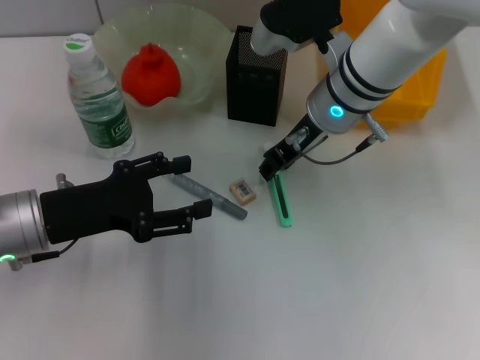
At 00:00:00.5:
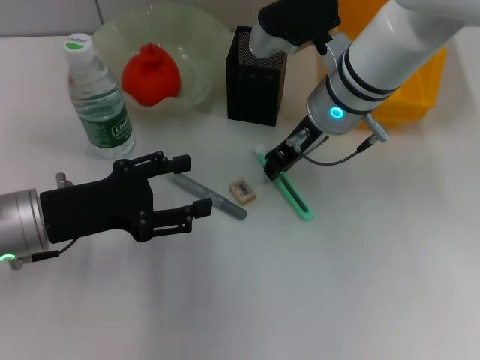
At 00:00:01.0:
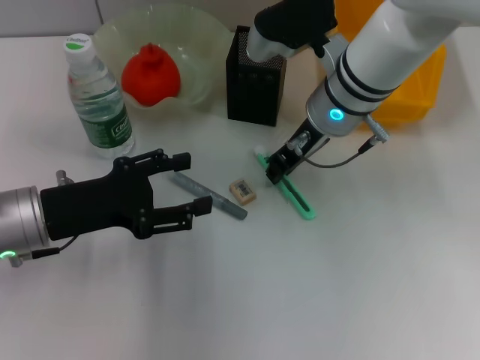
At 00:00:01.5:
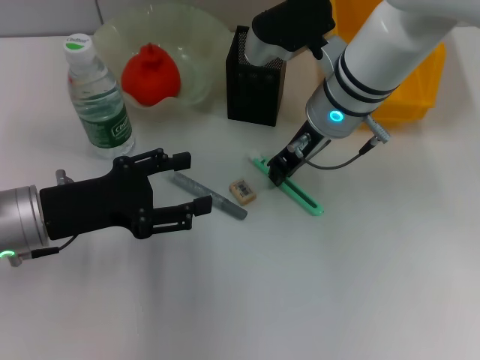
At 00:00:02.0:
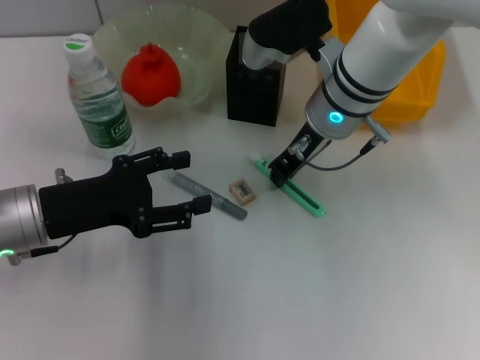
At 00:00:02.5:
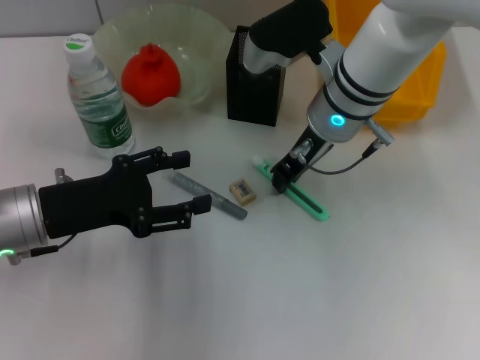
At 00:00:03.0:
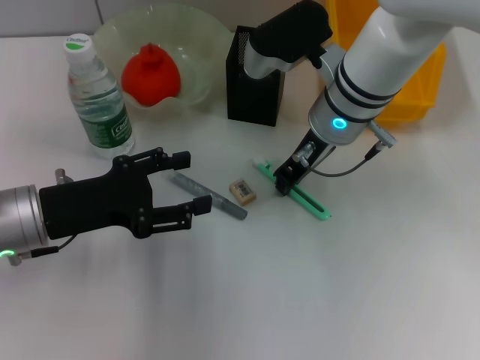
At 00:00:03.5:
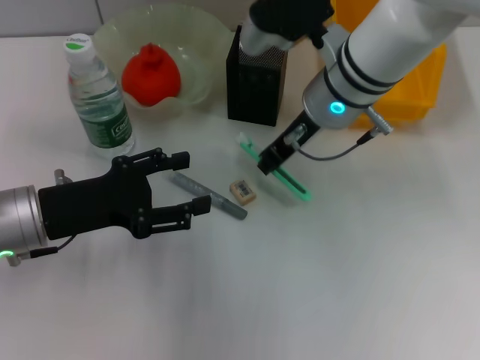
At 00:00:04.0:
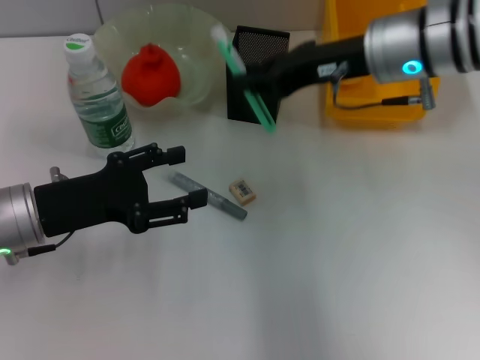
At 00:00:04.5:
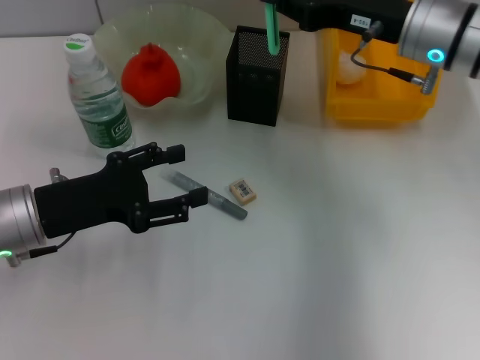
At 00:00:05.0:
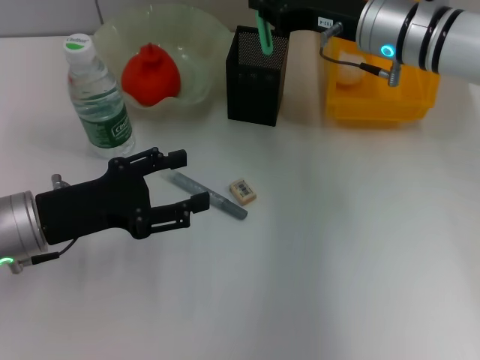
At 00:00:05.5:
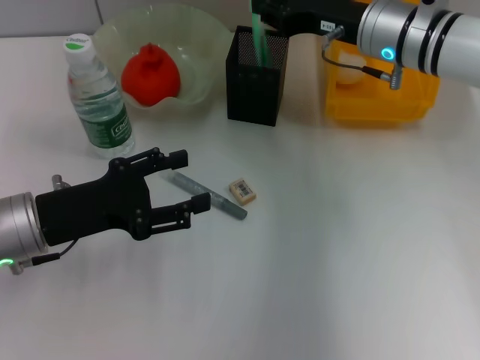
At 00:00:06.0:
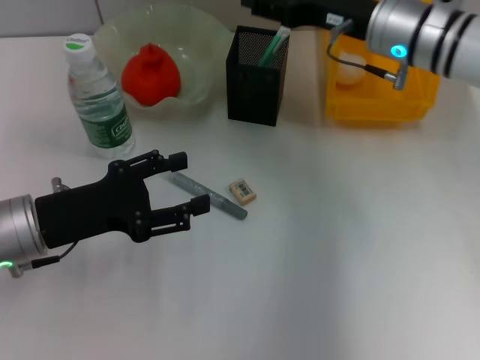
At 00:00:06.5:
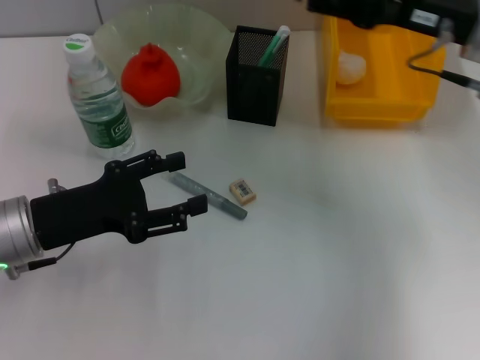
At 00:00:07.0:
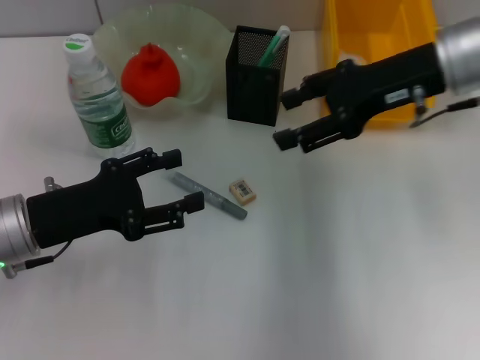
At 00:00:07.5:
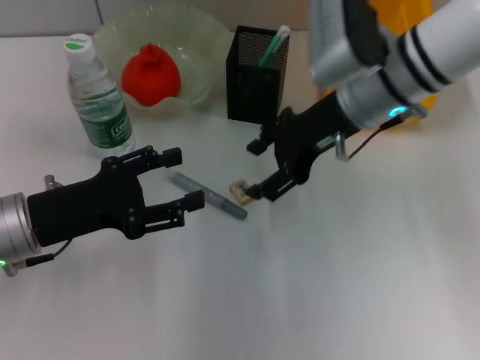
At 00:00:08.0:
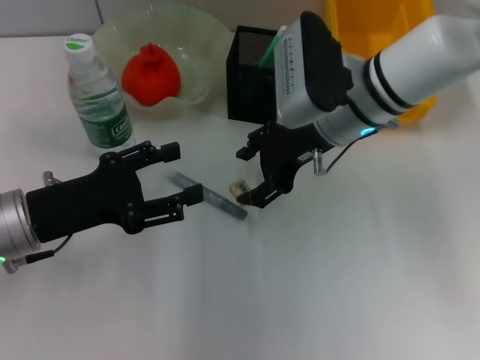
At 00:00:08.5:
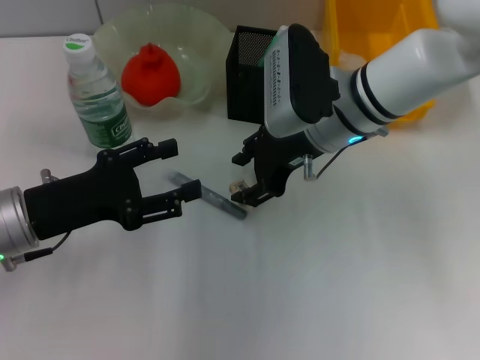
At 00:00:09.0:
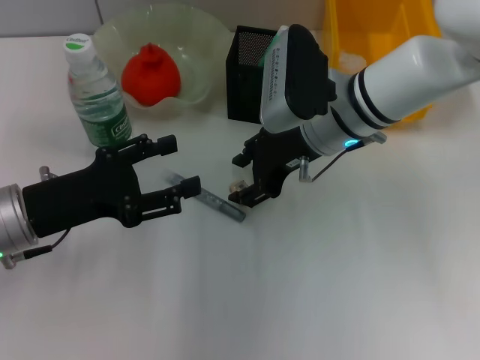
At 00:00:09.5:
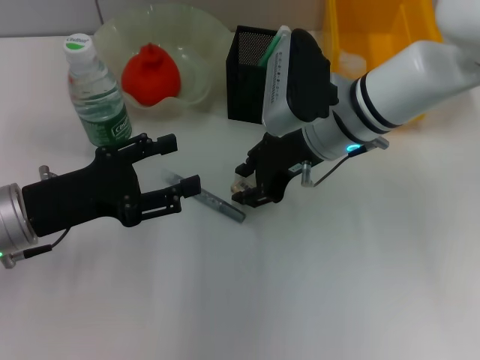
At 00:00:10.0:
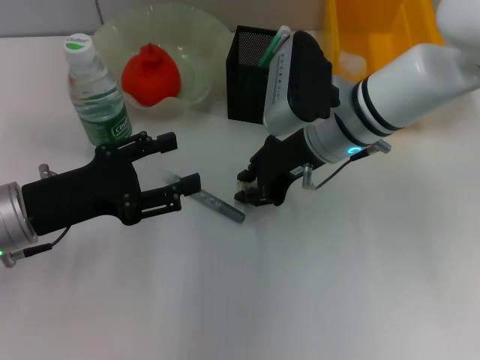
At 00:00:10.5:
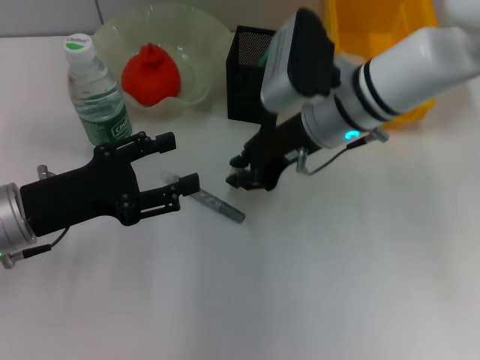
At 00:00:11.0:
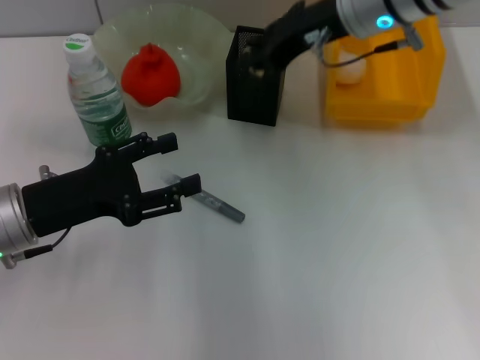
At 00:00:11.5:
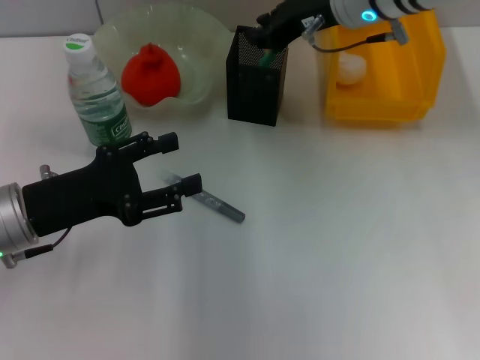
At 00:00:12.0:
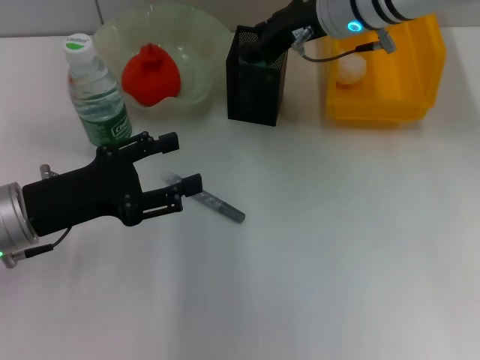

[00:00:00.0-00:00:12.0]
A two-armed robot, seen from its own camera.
Step, 00:00:00.0 to 00:00:02.5: Grab the blue utility knife with the right hand.
Step, 00:00:03.0 to 00:00:05.5: Place the blue utility knife into the pen holder with the right hand.
Step, 00:00:06.0 to 00:00:09.5: Grab the eraser with the right hand.
Step, 00:00:10.5 to 00:00:12.0: Put the eraser into the pen holder with the right hand.
00:00:00.0 to 00:00:02.0: The grippers stay close to where they were, moving slightly.
00:00:02.0 to 00:00:04.0: The right gripper is displaced to the right and upward by about 10 cm.
00:00:04.0 to 00:00:06.0: The right gripper ends up approximately 5 cm from where it was, and opens.
00:00:06.0 to 00:00:08.0: The right gripper goes about 5 cm to the left.
00:00:08.0 to 00:00:10.0: The right gripper closes its fingers.
00:00:10.0 to 00:00:12.0: The right gripper travels upward and forward by roughly 10 cm.

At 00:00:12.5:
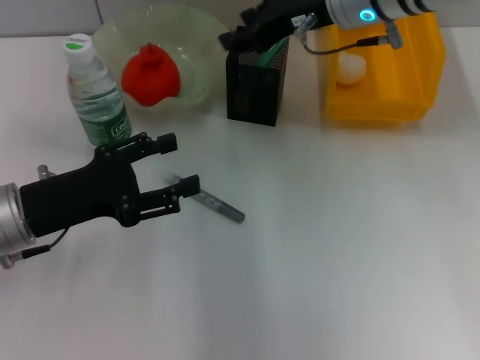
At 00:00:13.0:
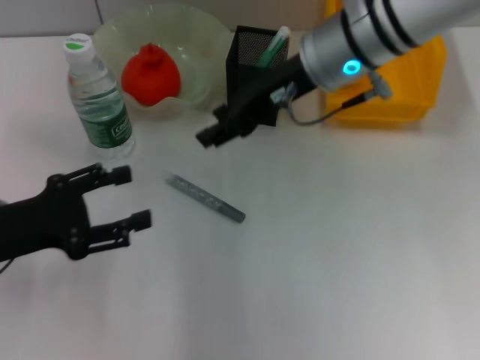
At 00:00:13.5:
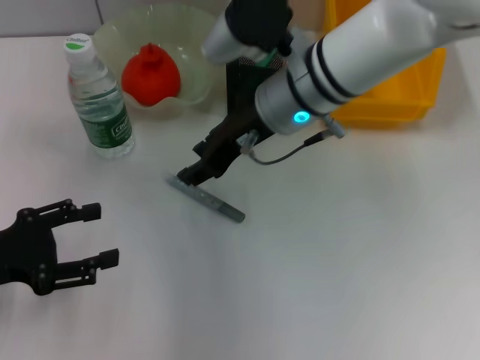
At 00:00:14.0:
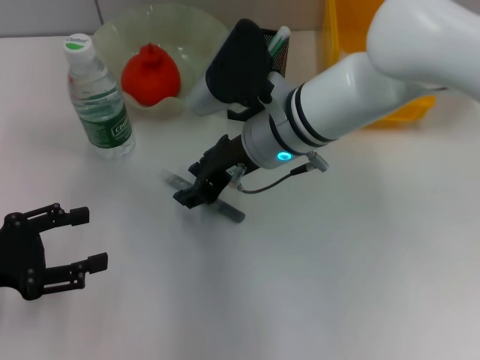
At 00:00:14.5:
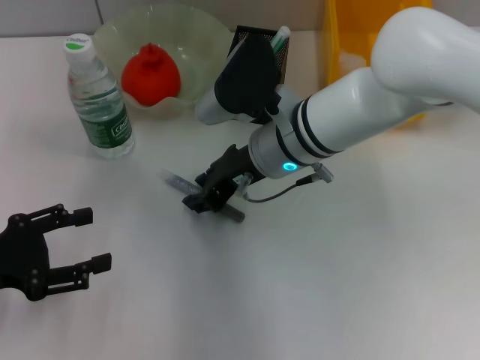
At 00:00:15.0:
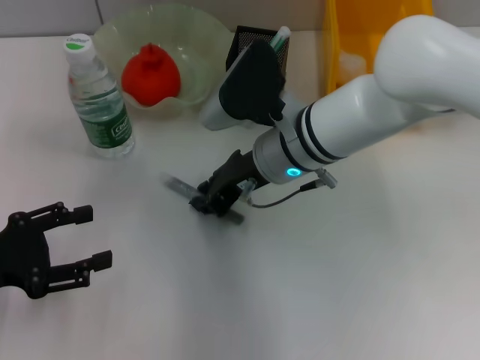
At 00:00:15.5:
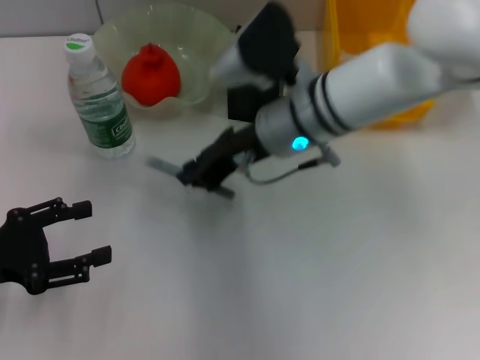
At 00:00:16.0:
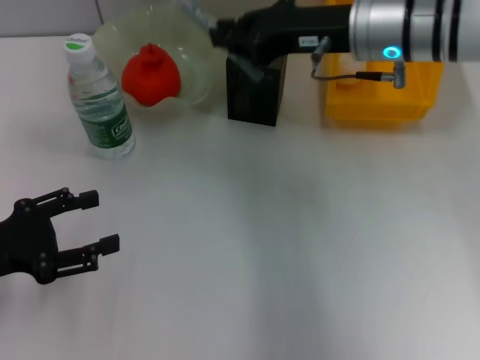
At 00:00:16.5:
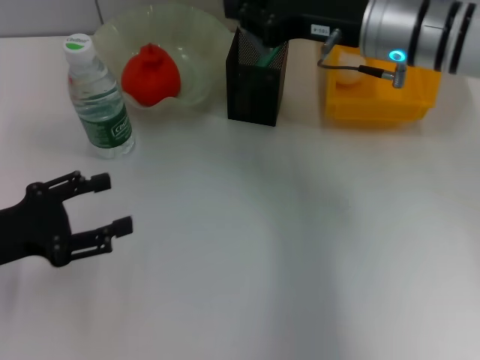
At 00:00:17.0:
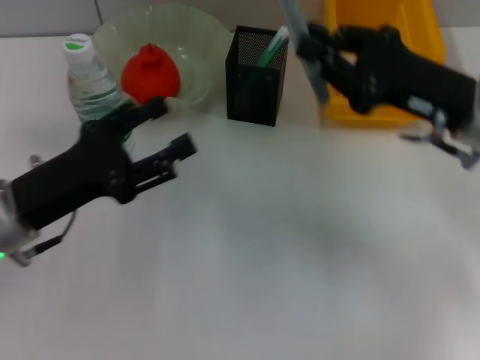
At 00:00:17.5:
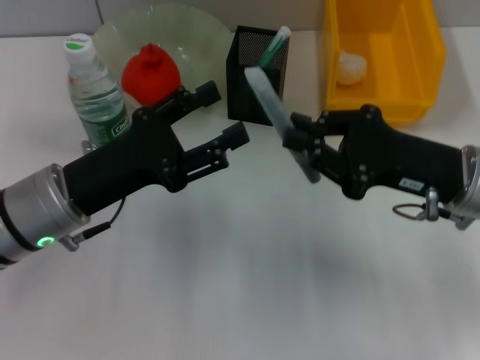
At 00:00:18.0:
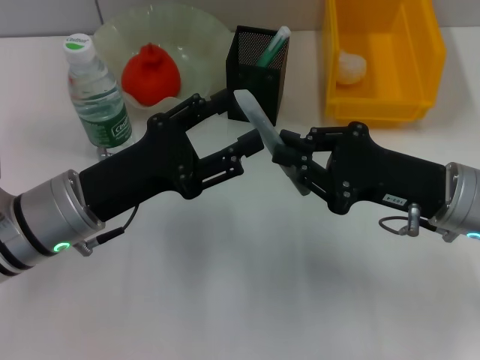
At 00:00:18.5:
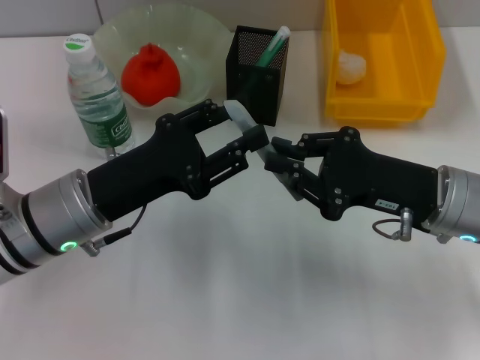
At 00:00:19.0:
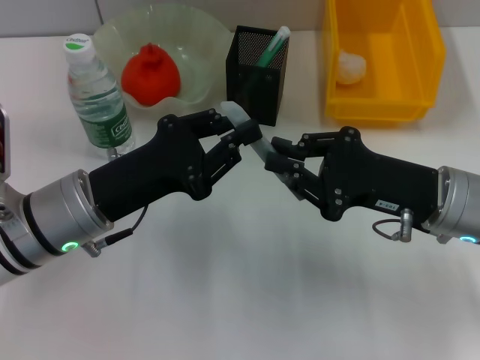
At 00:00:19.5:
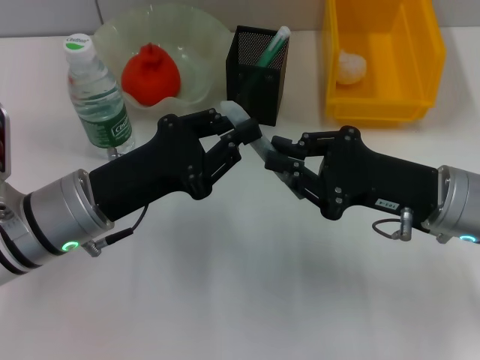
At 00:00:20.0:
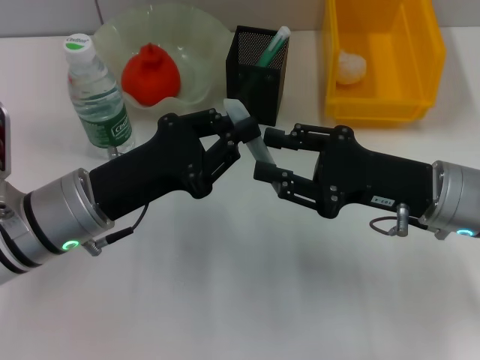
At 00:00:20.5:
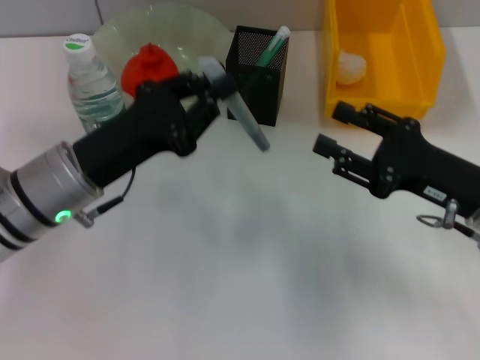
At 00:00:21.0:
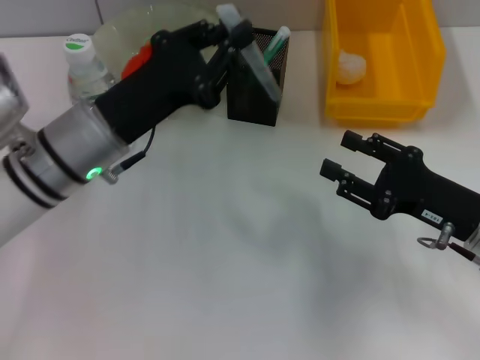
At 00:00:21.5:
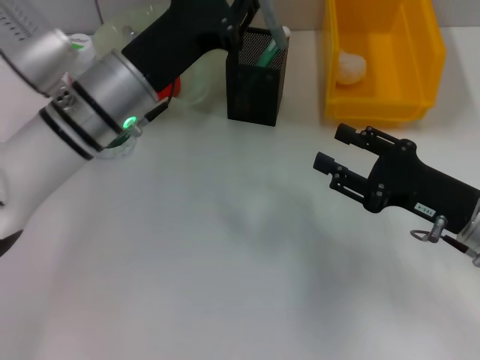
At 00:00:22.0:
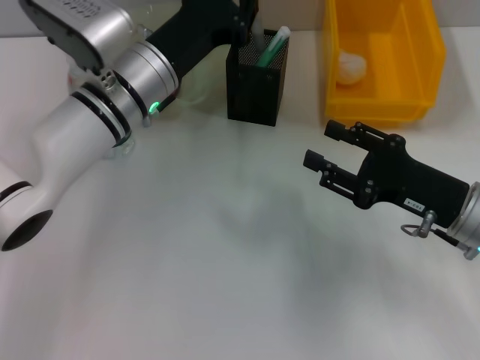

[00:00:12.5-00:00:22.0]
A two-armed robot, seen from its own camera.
Step, 00:00:12.5 to 00:00:15.0: Grab the gray glue with the right hand.
Step, 00:00:15.5 to 00:00:19.5: Pass the gray glue from the right hand to the left hand.
00:00:12.5 to 00:00:14.5: The left gripper goes about 10 cm to the left, while the right gripper heads downward, to the left and backward, covering some 15 cm.
00:00:14.5 to 00:00:16.5: The right gripper moves to the right and upward, about 15 cm, and closes its fingers.
00:00:16.5 to 00:00:18.0: The left gripper moves to the right, some 10 cm, while the right gripper goes about 15 cm backward, downward and to the right.
00:00:18.0 to 00:00:20.0: The left gripper closes up.
00:00:20.0 to 00:00:22.0: The right gripper moves some 5 cm, and opens its fingers. Meanwhile the left gripper goes approximately 15 cm forward and to the right.

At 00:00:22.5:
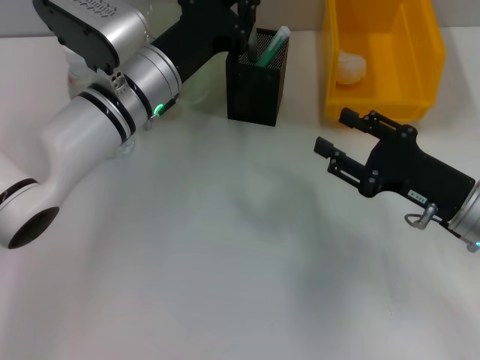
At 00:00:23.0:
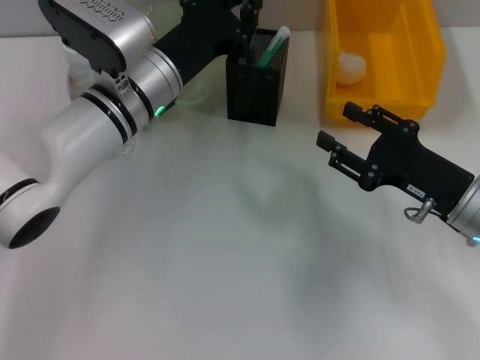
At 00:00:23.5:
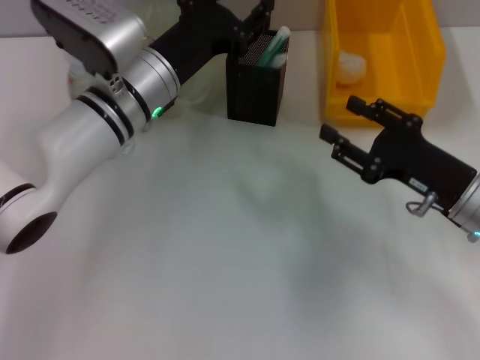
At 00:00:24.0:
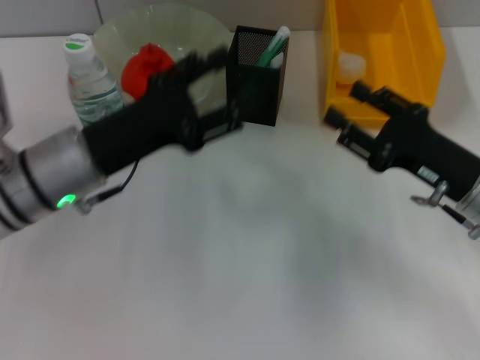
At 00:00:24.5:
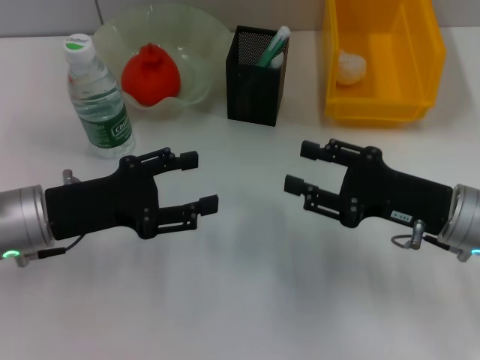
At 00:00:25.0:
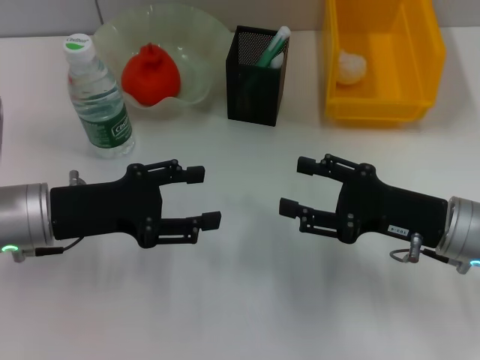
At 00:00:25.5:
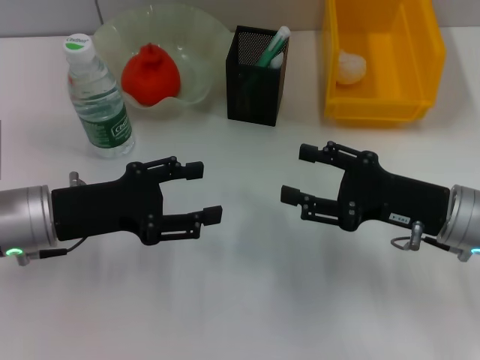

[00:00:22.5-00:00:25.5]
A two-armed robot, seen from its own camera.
00:00:22.5 to 00:00:24.0: The left gripper is displaced backward and to the left by some 10 cm, and opens up.
00:00:24.0 to 00:00:25.5: The left gripper ends up approximately 5 cm from where it was.
